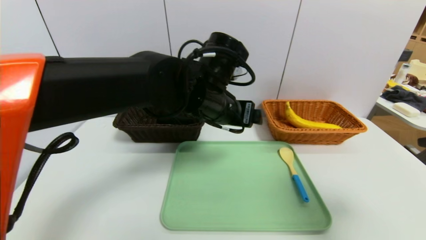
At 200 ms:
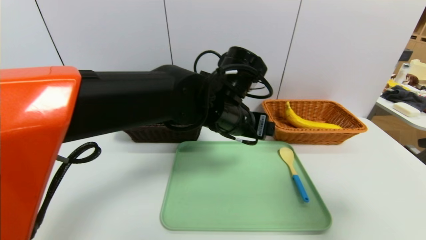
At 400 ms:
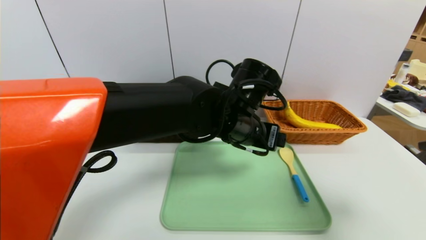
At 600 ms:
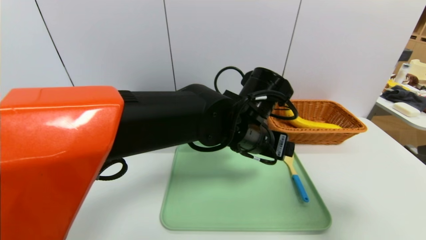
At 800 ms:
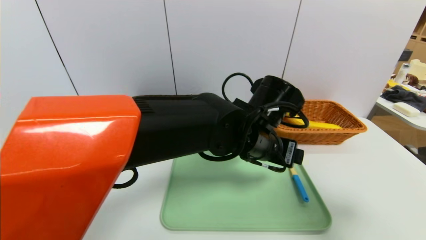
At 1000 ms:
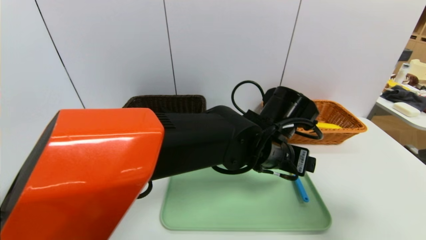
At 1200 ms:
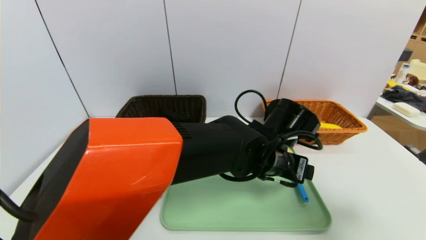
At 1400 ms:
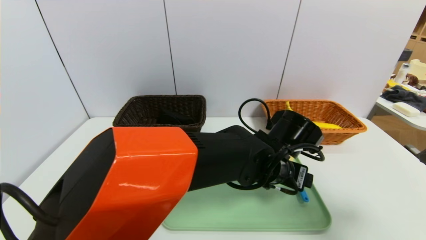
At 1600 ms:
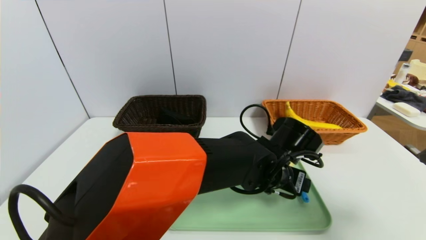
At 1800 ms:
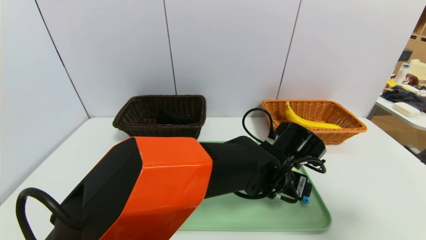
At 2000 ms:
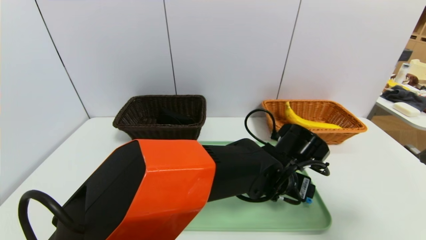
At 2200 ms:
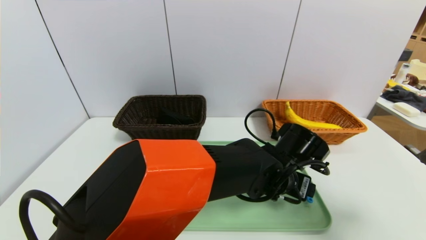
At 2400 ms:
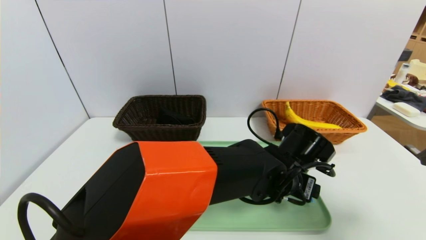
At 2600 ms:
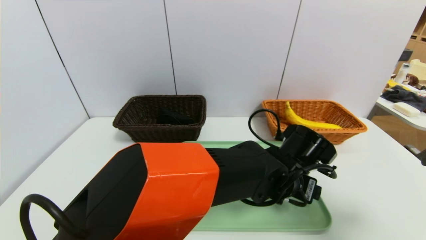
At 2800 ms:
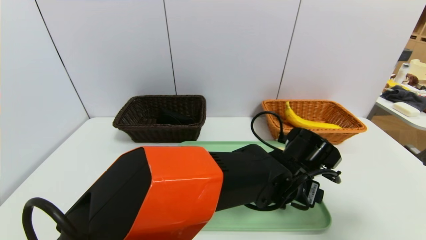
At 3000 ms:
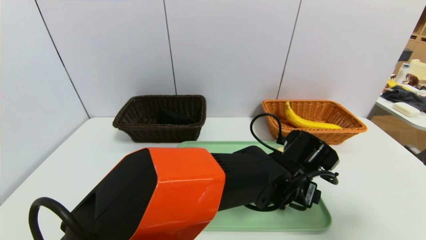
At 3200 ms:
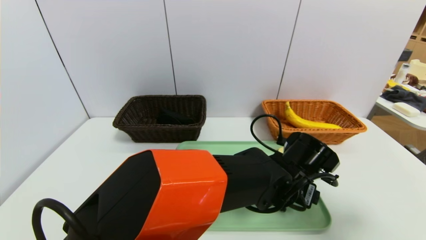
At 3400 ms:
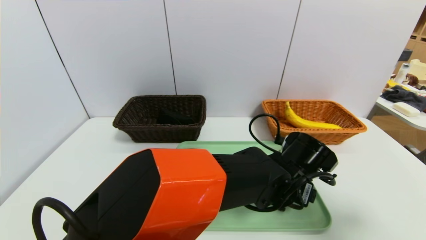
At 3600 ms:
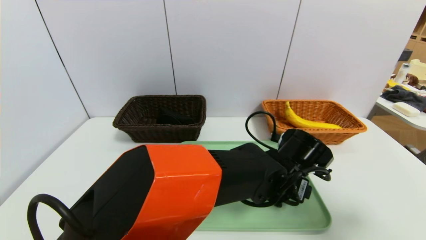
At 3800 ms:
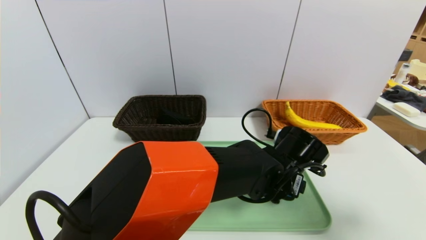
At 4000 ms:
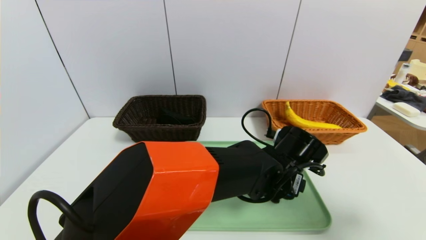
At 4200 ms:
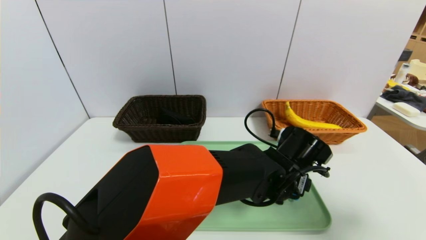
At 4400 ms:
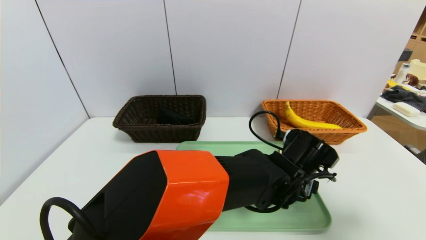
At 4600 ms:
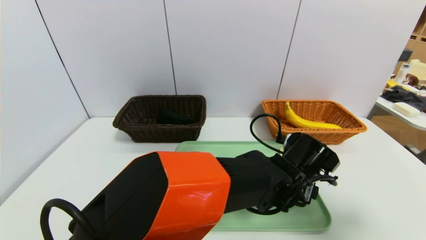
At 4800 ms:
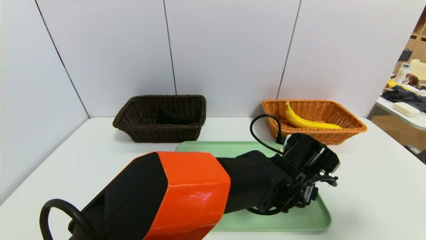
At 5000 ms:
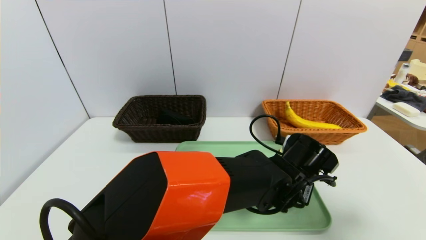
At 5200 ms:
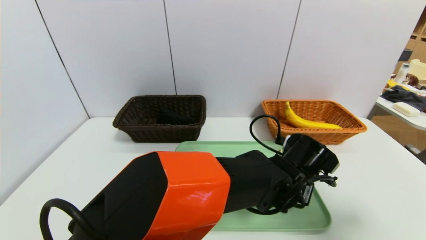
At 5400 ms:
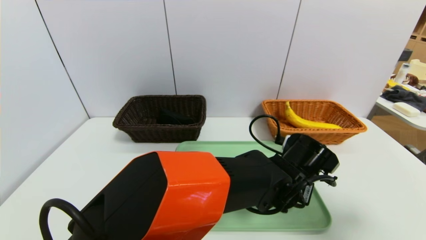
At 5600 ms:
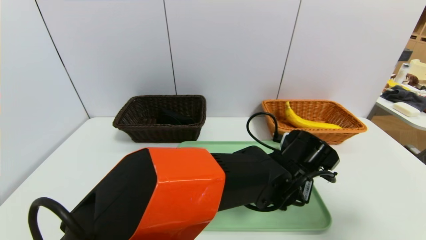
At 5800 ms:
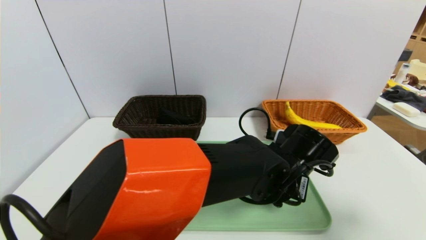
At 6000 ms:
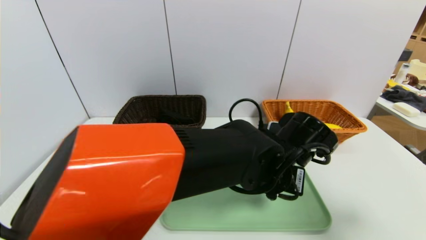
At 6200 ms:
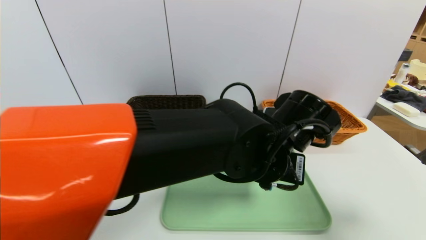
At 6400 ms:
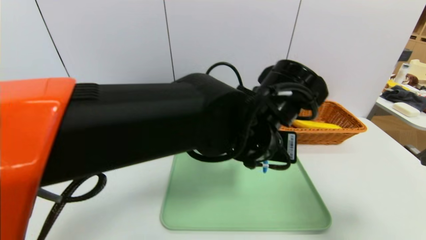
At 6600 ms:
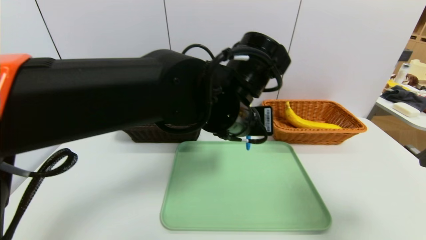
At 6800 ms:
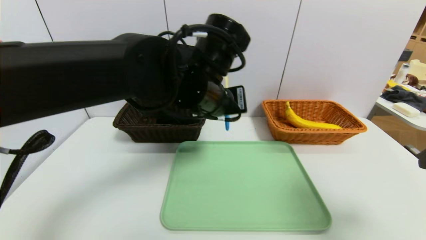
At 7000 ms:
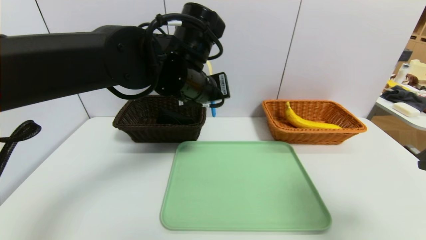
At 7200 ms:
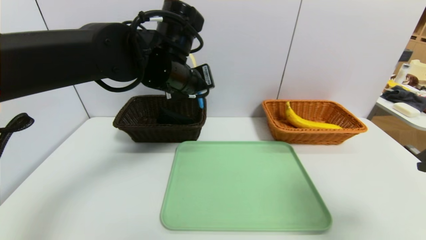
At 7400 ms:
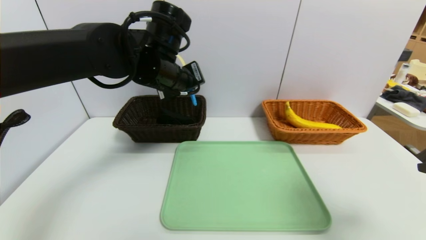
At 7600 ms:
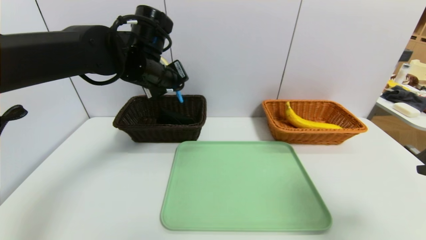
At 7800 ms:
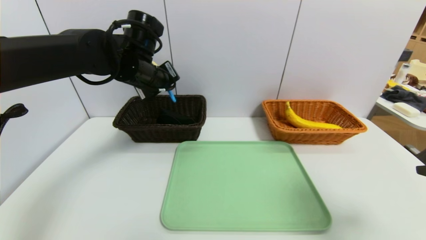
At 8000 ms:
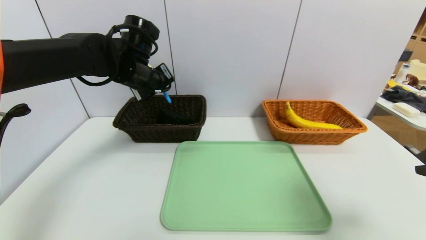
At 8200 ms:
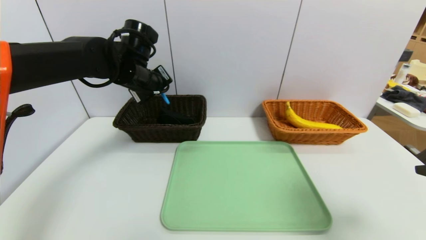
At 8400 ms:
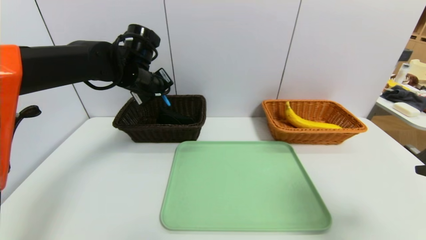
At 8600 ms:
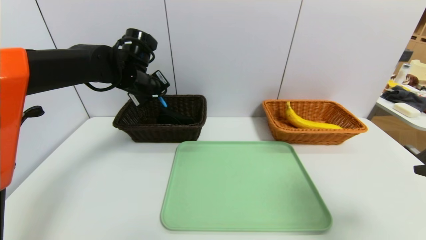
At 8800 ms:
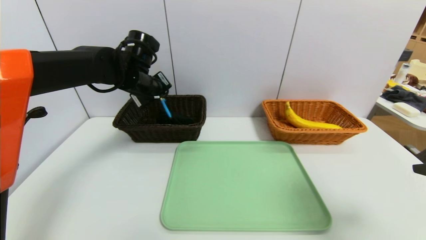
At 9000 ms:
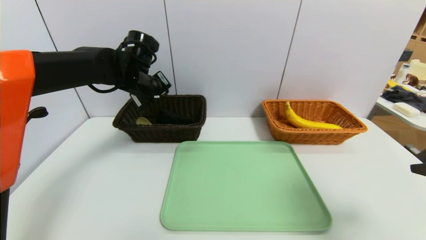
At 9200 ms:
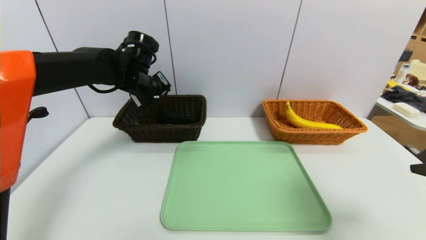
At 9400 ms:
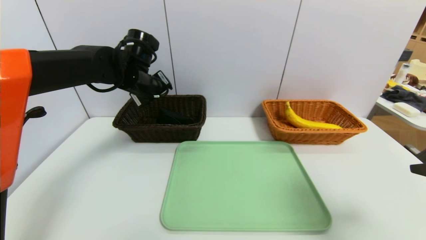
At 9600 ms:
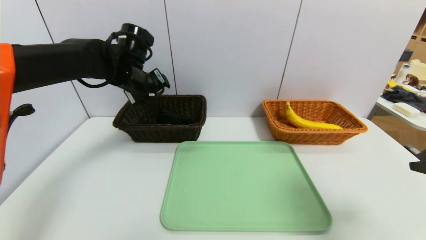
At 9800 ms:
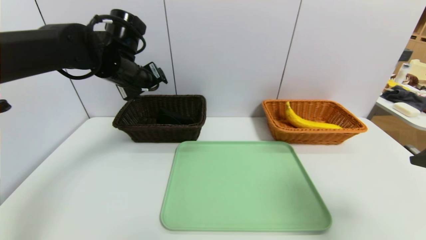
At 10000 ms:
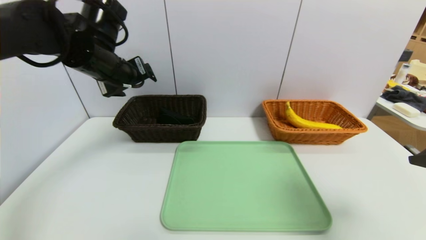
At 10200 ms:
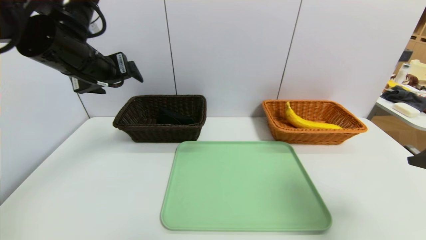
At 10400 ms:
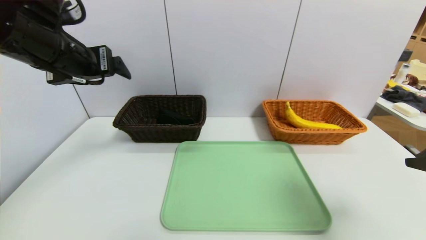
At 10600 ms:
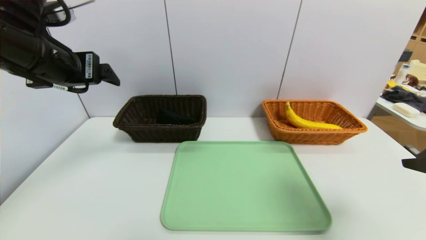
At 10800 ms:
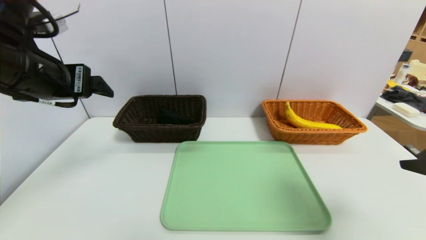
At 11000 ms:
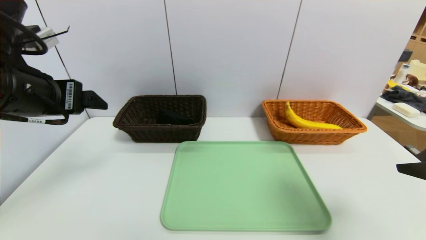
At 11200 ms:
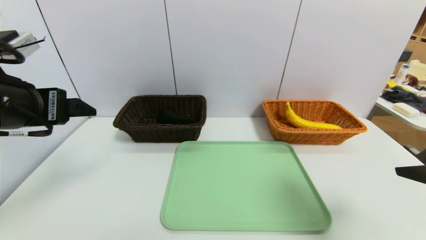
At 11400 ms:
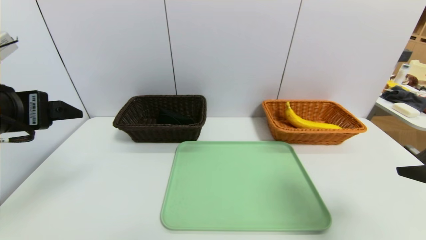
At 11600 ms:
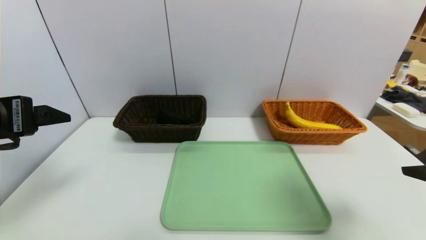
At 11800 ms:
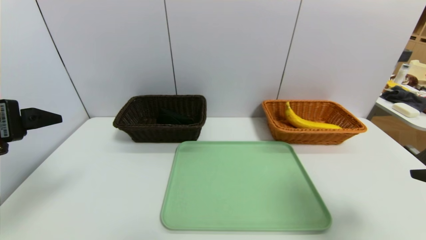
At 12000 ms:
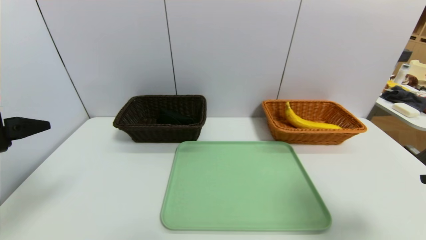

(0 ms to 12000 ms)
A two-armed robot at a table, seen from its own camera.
Task of the whole recording: place the food in the right basket with the right gripper, and place the non food items in the left basket with the left gripper.
Step, 0 ms - 9200 ms: Grasp the spoon and put it in the left basket.
0 ms - 1600 ms: The left gripper goes approximately 15 cm downward and to the right.
1600 ms - 4400 ms: The grippers move only a little.
4400 ms - 6000 ms: The left gripper travels upward by some 5 cm, and closes up.
6000 ms - 7600 ms: The left gripper is displaced to the left, forward and upward by about 30 cm.
7600 ms - 9000 ms: The left gripper ends up some 5 cm from where it was, and opens.
9000 ms - 10400 ms: The left gripper is displaced backward, upward and to the left by approximately 20 cm, and opens.
10400 ms - 12000 ms: The left gripper heads backward, covering some 15 cm.

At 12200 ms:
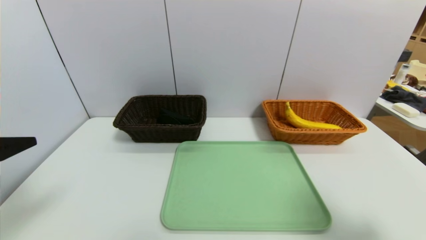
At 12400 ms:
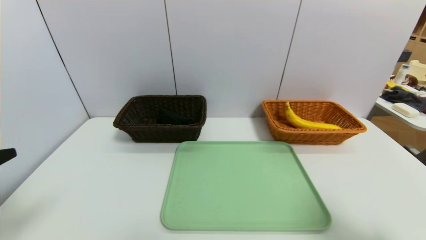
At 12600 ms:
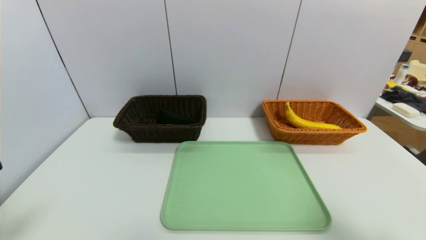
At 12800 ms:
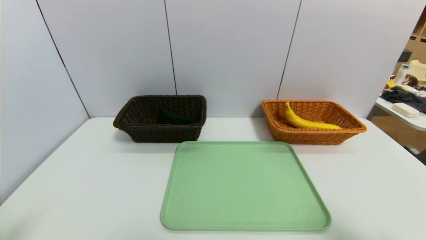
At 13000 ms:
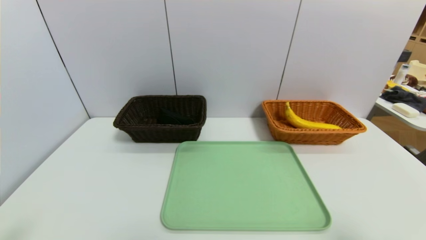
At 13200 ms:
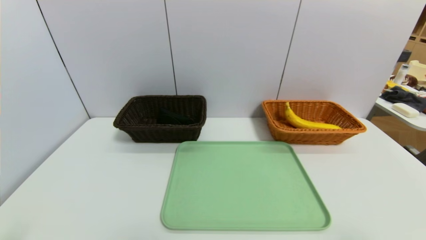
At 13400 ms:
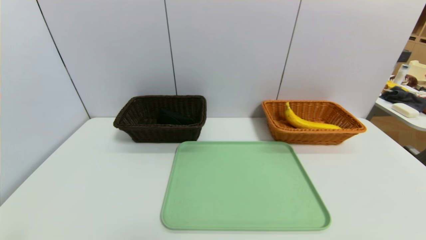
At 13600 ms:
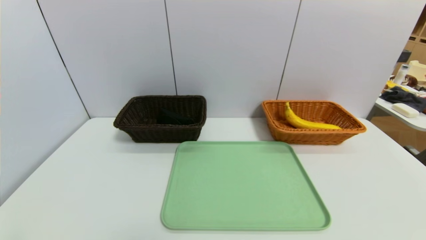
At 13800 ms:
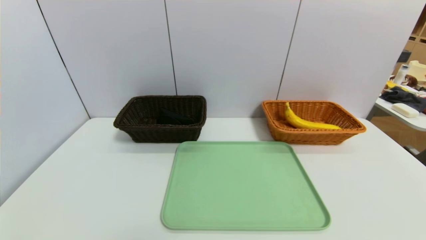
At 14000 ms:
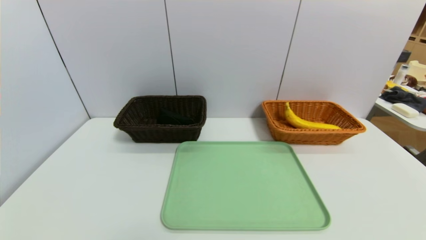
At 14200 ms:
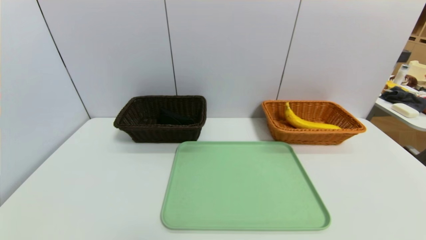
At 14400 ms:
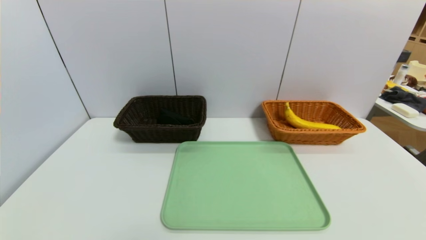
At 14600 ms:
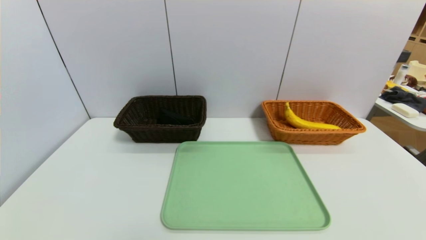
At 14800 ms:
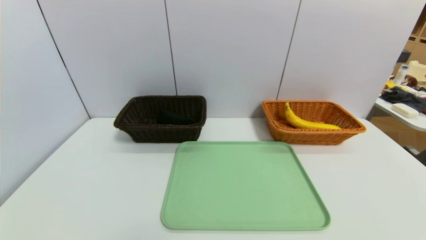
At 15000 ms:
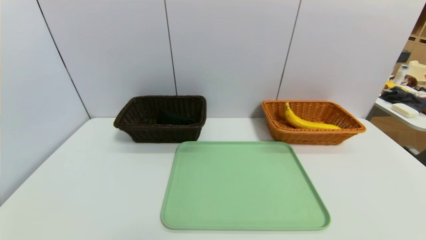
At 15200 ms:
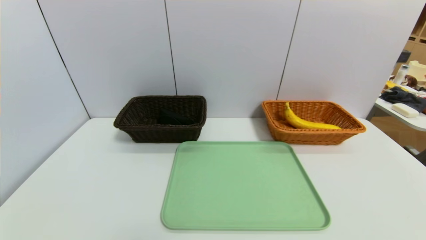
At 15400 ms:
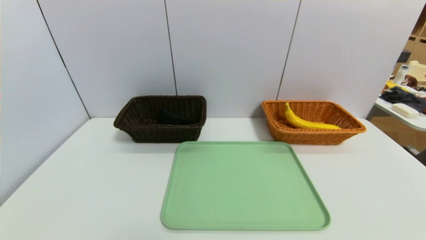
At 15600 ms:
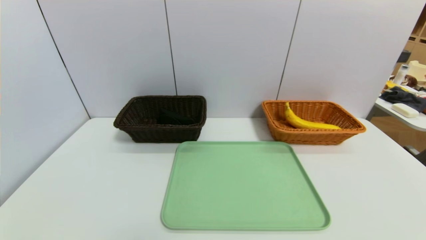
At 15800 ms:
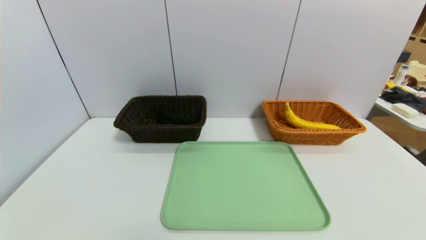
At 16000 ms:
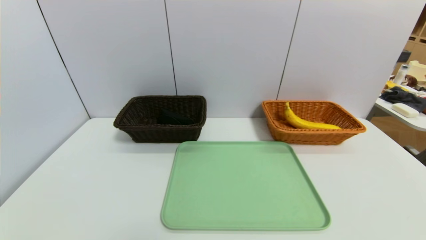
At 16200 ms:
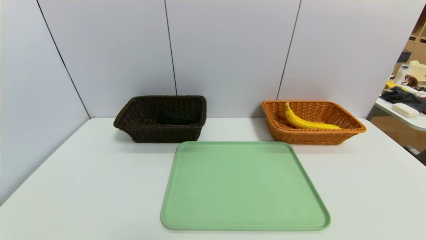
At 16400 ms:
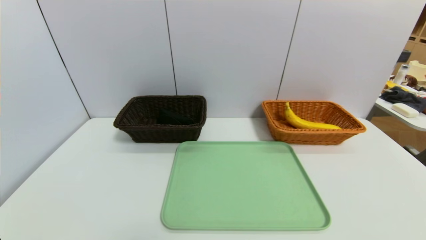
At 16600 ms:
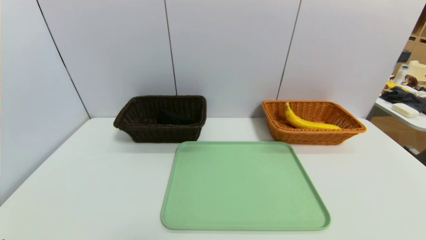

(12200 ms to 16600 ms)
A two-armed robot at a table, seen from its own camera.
Task of the whole recording: place the food in the right basket with the right gripper, and place the non food items in the left basket with the left gripper.
12200 ms - 13600 ms: Both grippers move backward and downward, about 15 cm.
